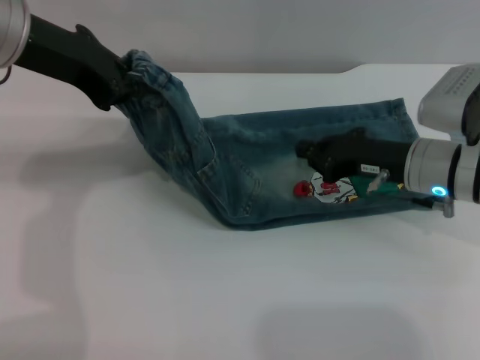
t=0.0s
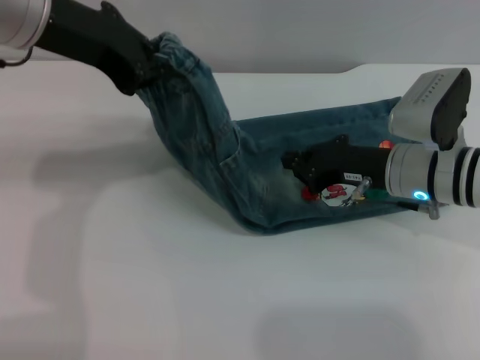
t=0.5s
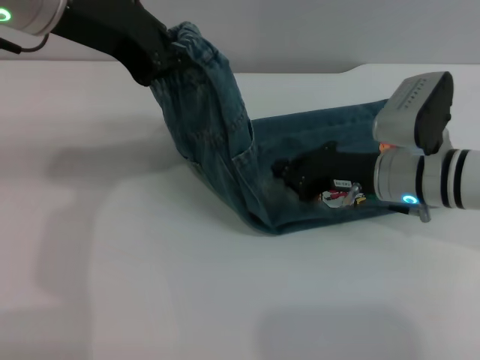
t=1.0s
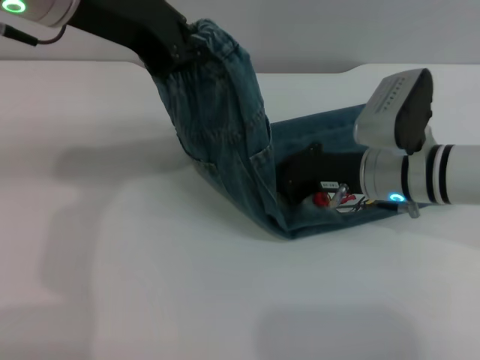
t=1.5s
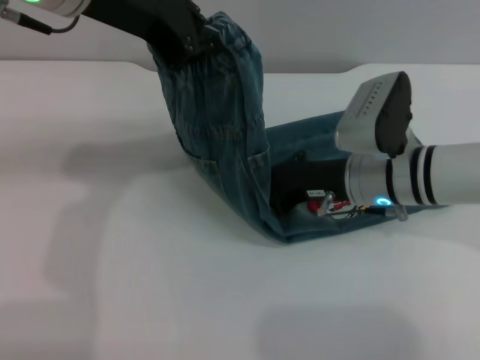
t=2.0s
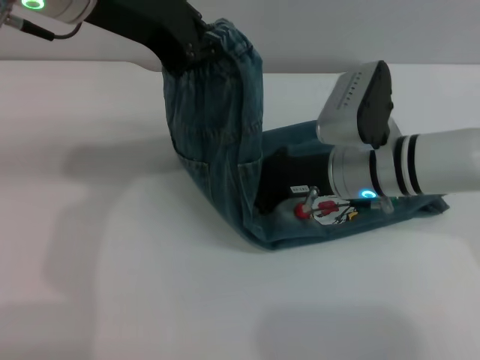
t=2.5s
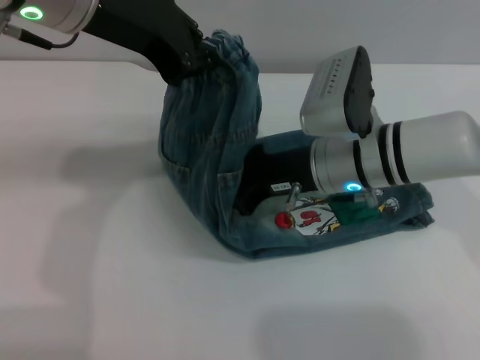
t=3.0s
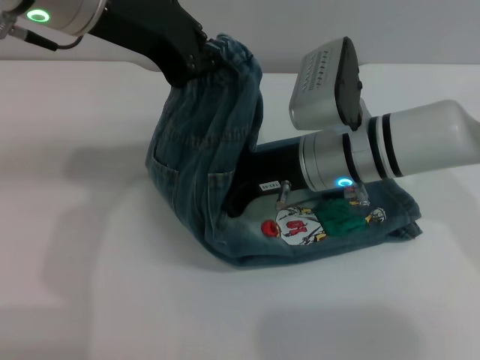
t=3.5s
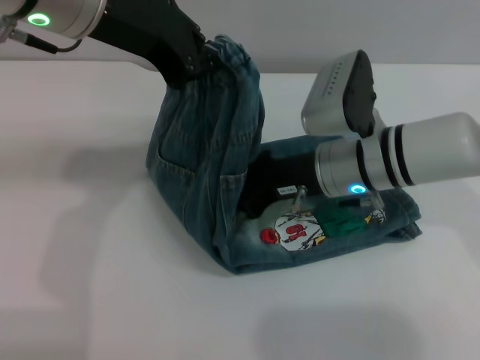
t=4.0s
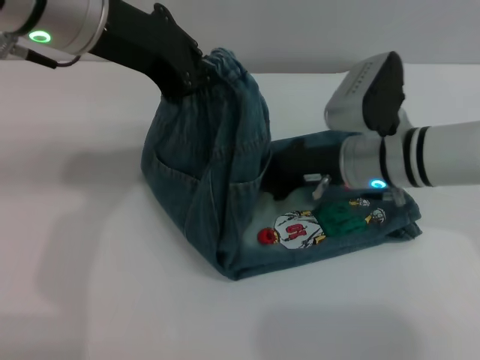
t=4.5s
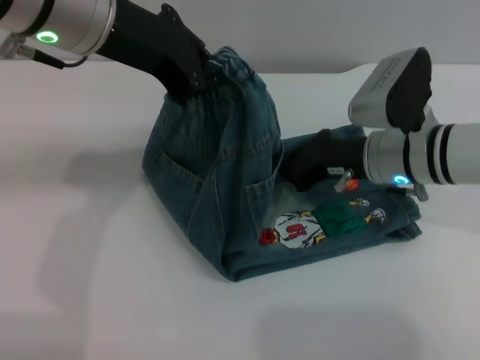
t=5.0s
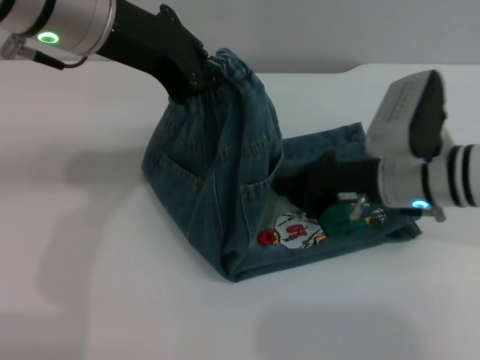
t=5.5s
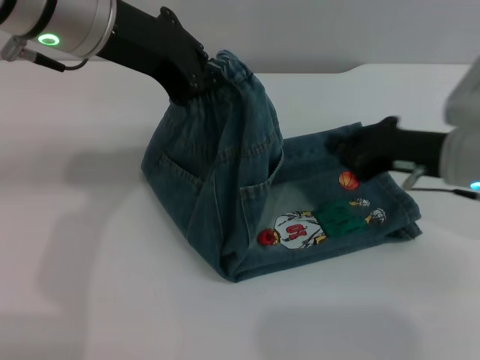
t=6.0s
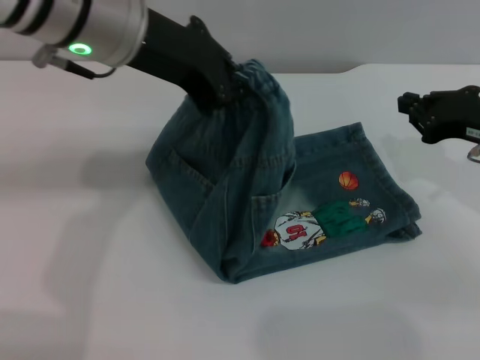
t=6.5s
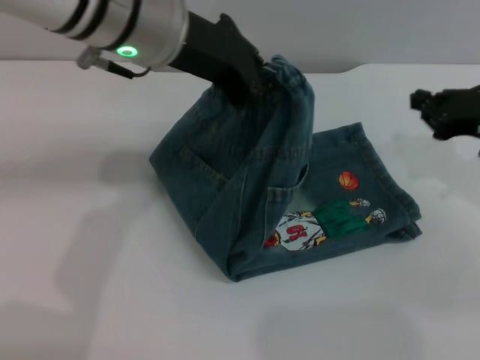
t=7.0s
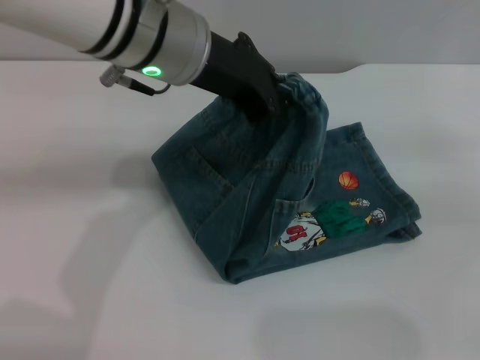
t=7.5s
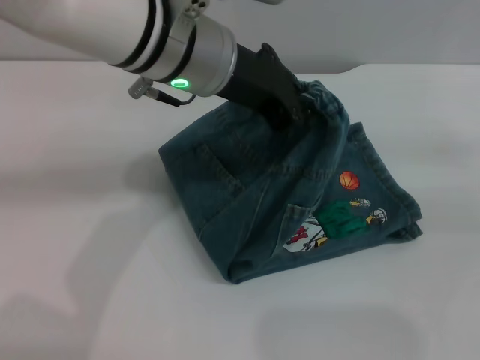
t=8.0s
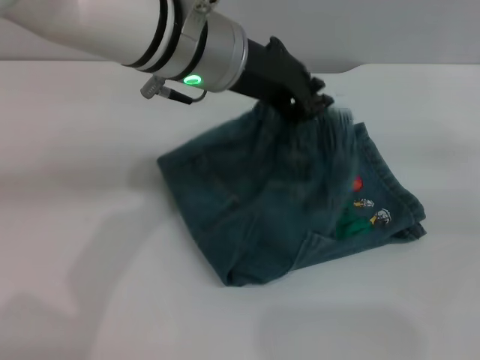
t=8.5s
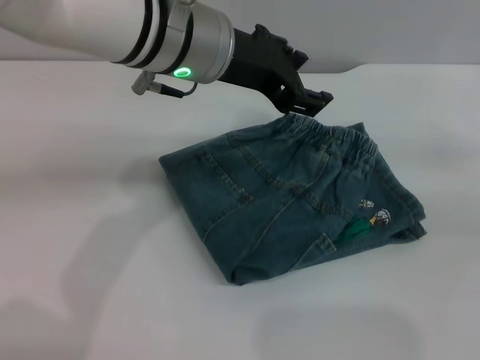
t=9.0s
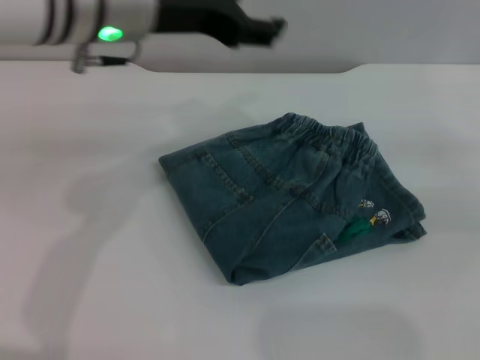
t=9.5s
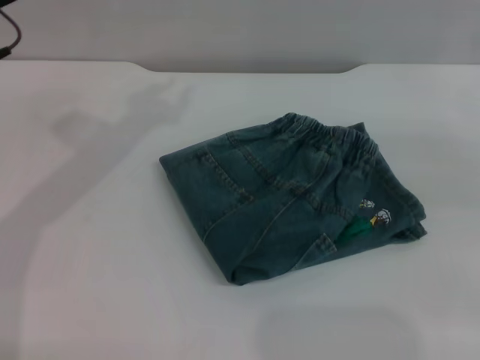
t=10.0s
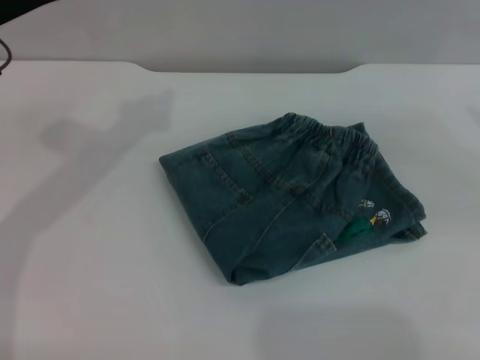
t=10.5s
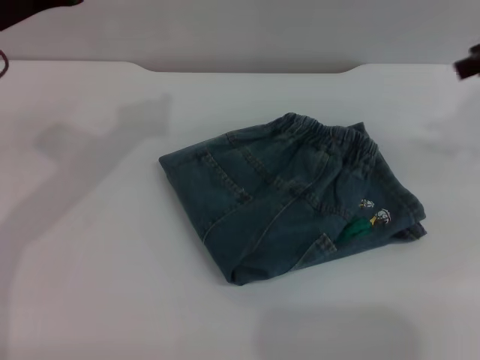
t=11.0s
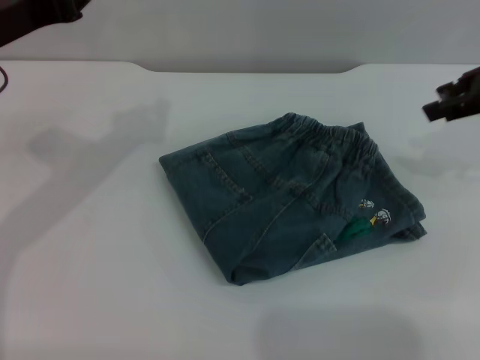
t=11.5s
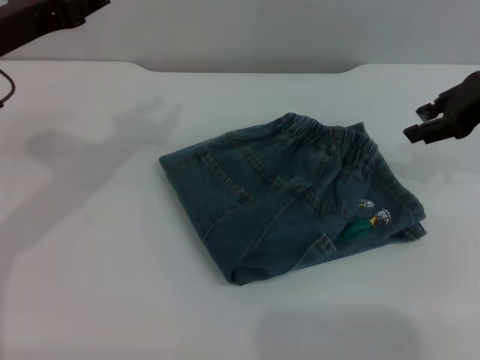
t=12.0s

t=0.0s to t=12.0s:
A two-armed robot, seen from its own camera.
Step, t=0.0s to t=9.5s: Fold the pants from left to right with the left gripper.
t=0.0s to t=2.0s: The left gripper heads to the right, covering some 5 cm. The right gripper is displaced to the left by some 5 cm.
t=4.0s to t=6.0s: The right gripper moves to the right, approximately 10 cm.
t=6.0s to t=8.0s: The right gripper travels to the right by some 15 cm. The left gripper heads to the right, covering some 10 cm.
t=8.0s to t=10.0s: The left gripper heads to the left, covering roughly 15 cm, and opens, while the right gripper heads upward, covering roughly 5 cm, and opens up.
t=10.0s to t=12.0s: The right gripper heads to the left and forward, covering about 15 cm, and opens up.

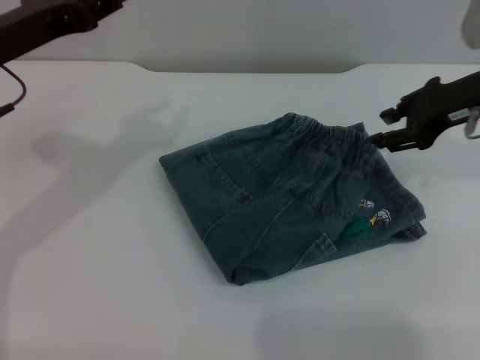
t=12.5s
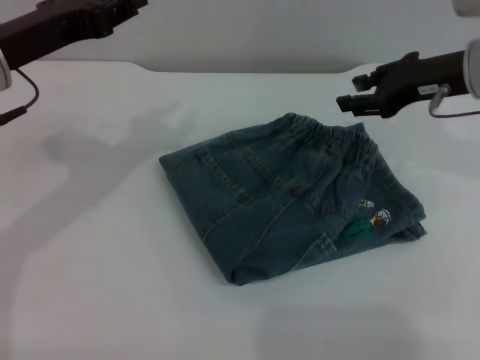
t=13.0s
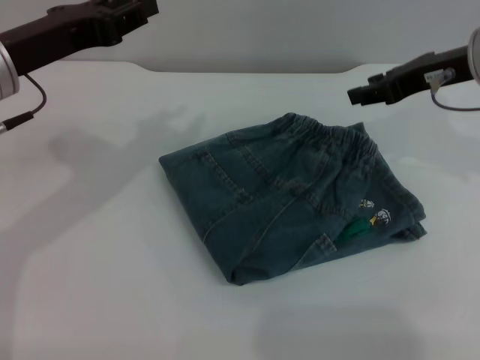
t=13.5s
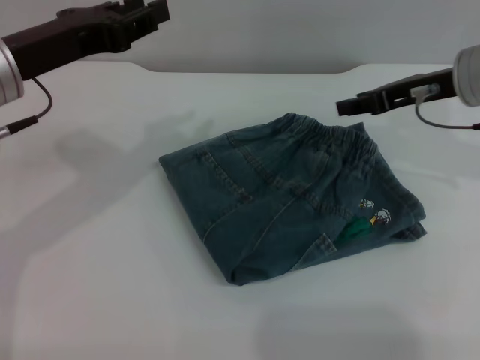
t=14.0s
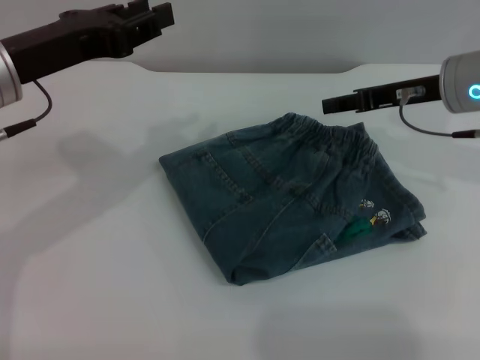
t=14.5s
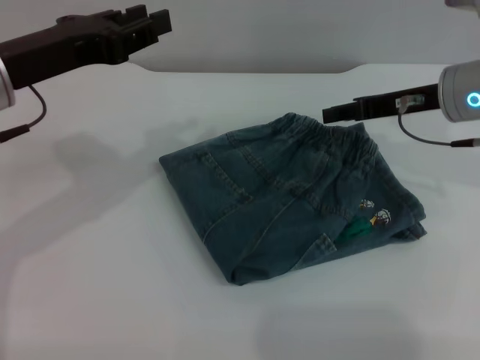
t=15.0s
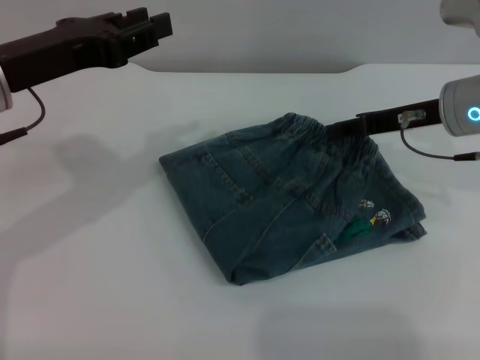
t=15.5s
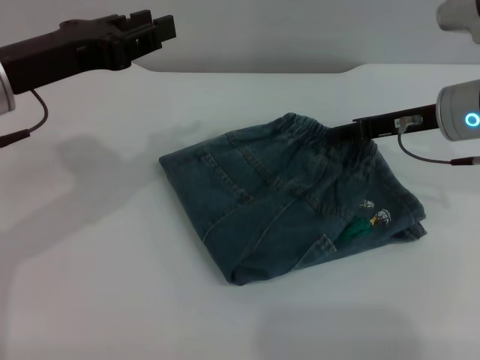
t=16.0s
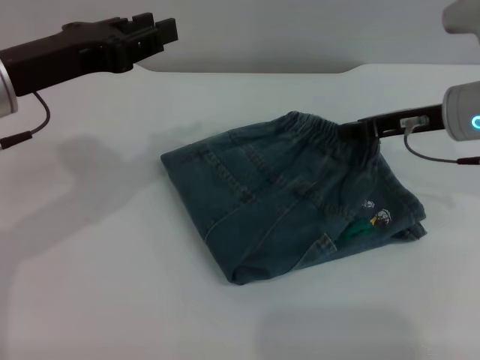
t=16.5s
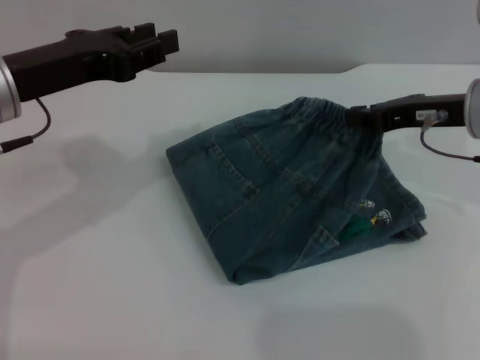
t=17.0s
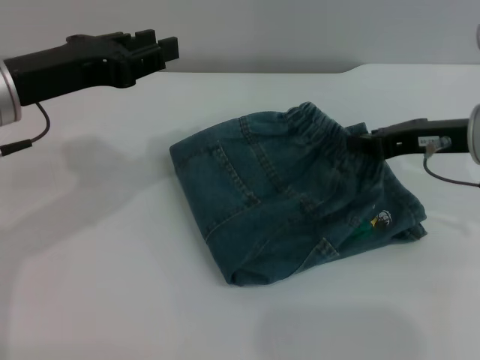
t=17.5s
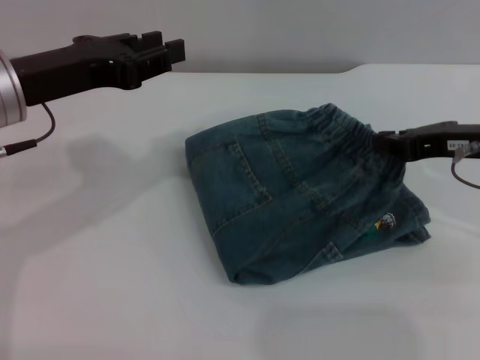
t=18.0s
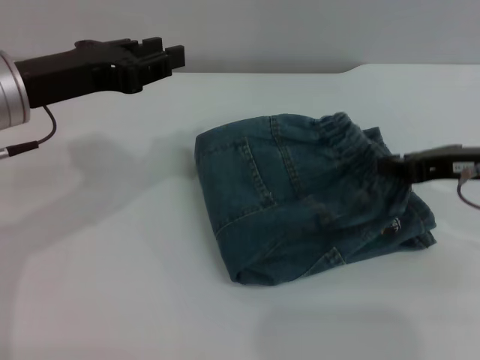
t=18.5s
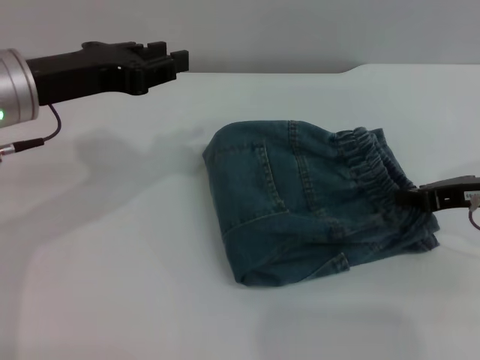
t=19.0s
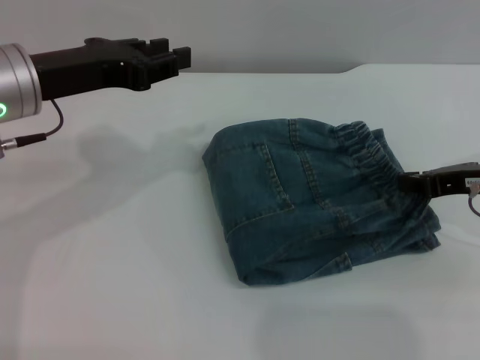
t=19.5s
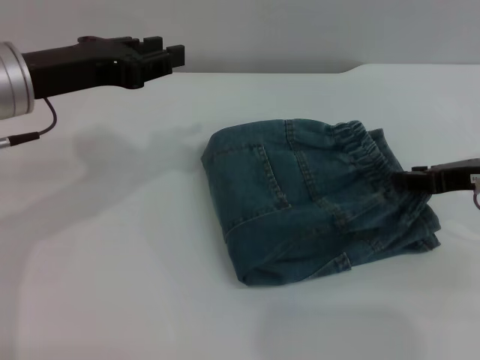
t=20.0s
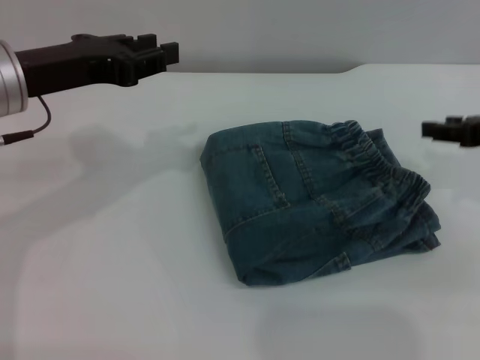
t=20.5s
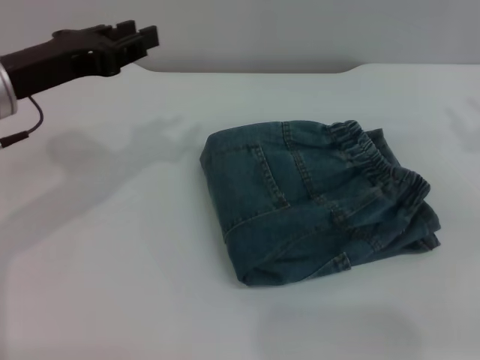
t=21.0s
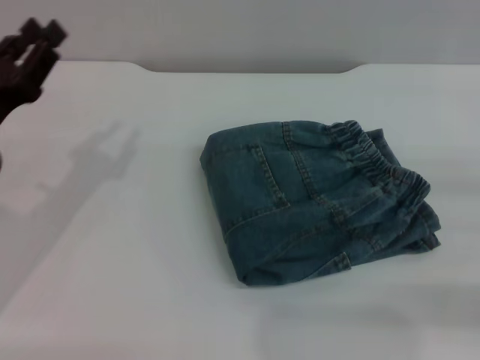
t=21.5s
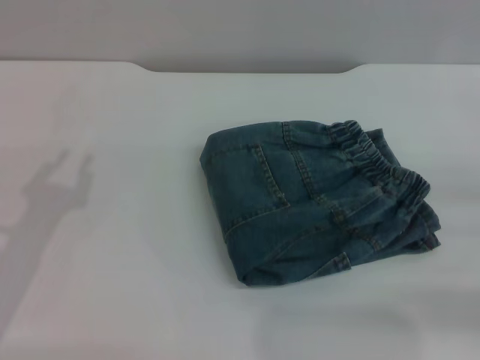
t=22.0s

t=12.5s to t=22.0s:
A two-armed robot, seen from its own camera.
t=14.5s to t=16.5s: The right gripper closes its fingers.
t=16.5s to t=18.0s: The right gripper moves backward, approximately 5 cm.
t=18.0s to t=20.0s: The grippers stay close to where they were, moving slightly.
t=20.0s to t=22.0s: The left gripper travels downward, backward and to the left by some 20 cm. Meanwhile the right gripper moves to the right and backward, about 15 cm, and opens.

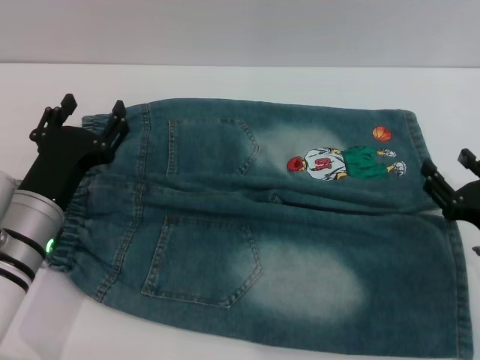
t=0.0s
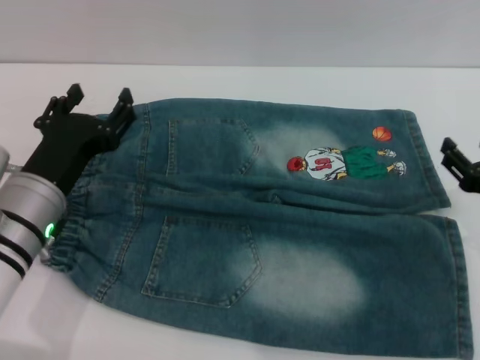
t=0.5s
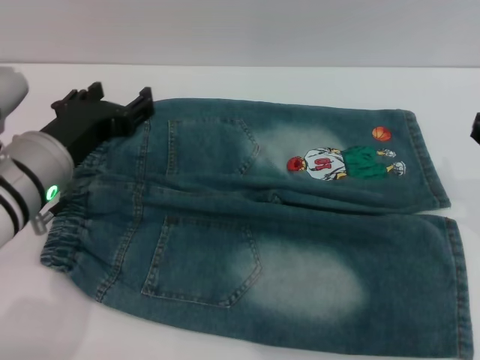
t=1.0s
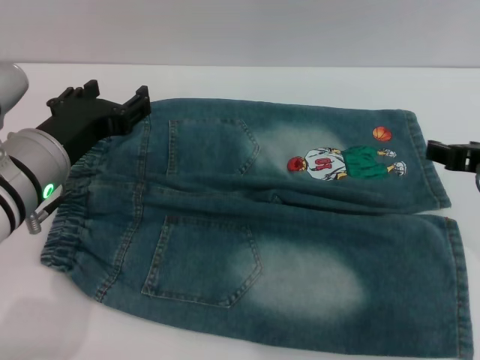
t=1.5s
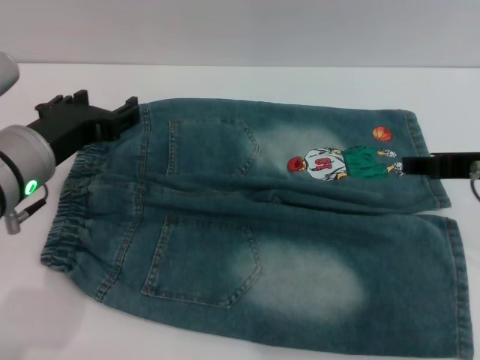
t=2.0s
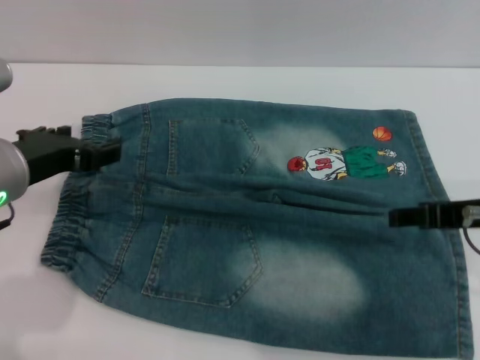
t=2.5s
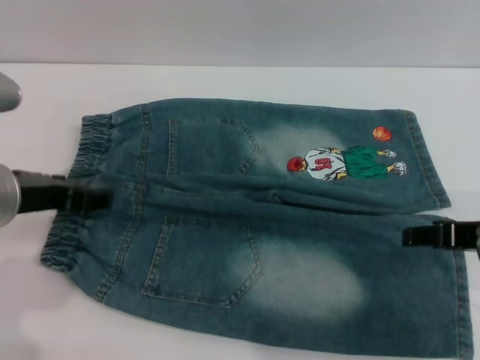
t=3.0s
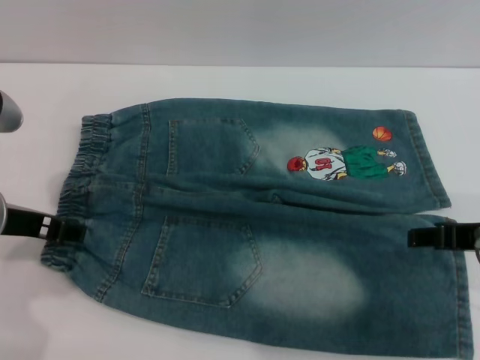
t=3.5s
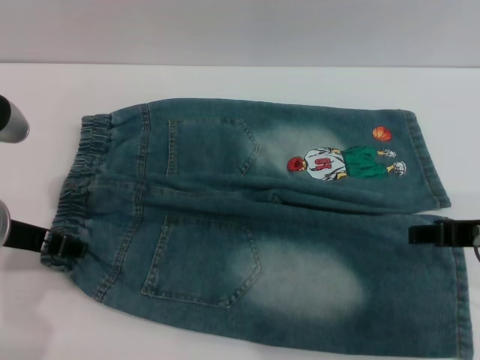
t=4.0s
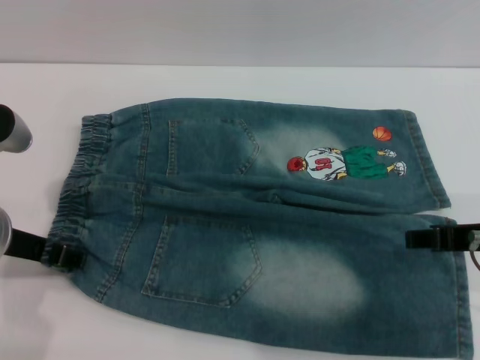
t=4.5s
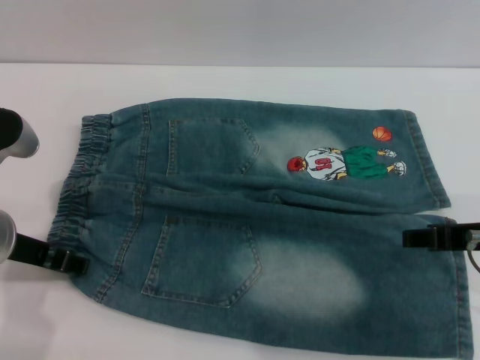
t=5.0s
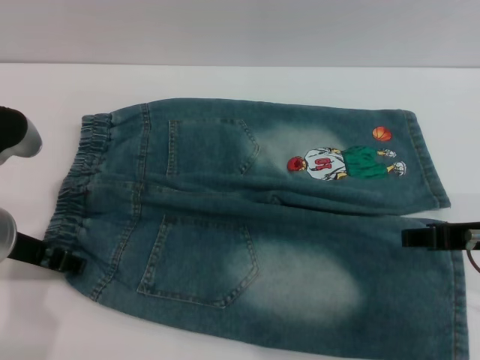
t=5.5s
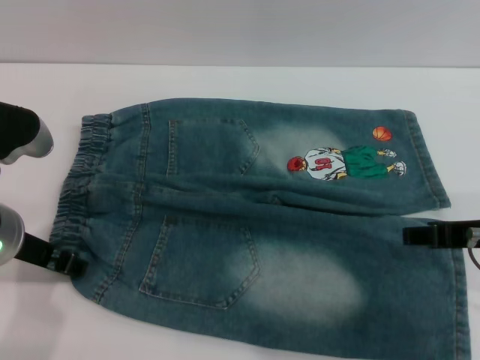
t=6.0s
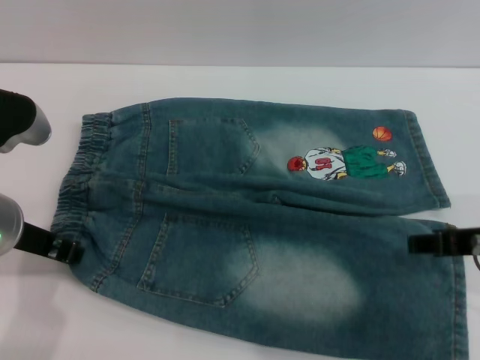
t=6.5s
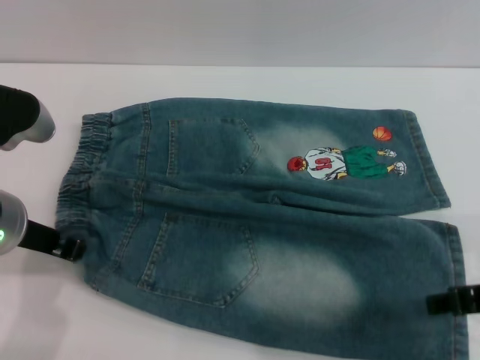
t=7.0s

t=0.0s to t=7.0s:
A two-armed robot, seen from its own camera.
t=0.0s to t=2.0s: The left gripper travels upward by approximately 10 cm, while the right gripper shifts some 15 cm upward.
t=3.5s to t=5.0s: There are only small adjustments of the grippers.
t=5.0s to t=7.0s: The left gripper closes.
